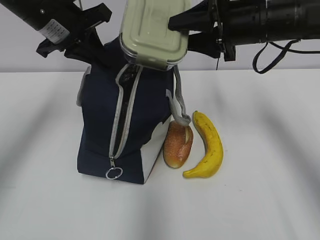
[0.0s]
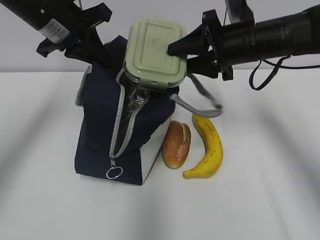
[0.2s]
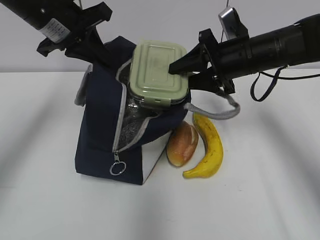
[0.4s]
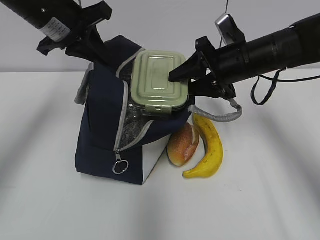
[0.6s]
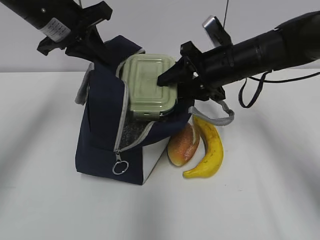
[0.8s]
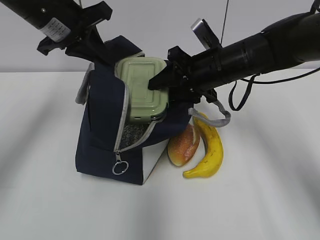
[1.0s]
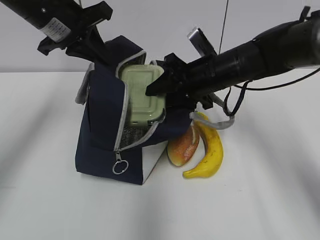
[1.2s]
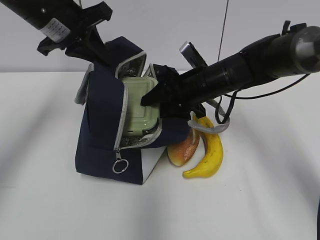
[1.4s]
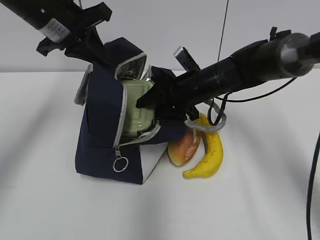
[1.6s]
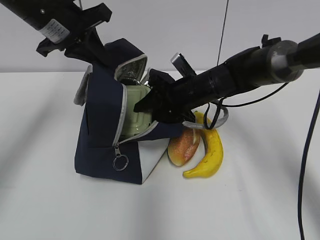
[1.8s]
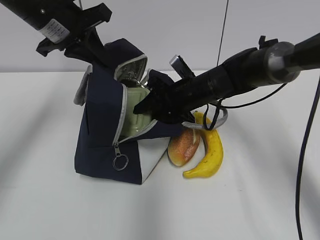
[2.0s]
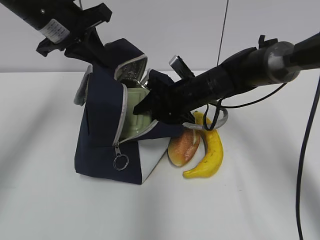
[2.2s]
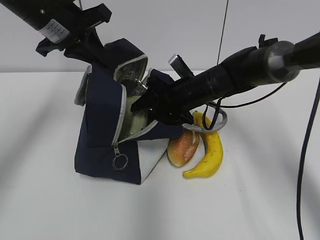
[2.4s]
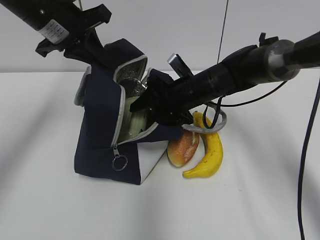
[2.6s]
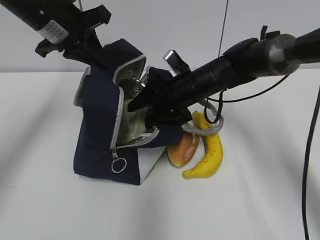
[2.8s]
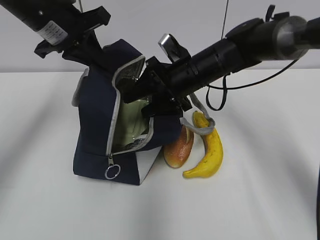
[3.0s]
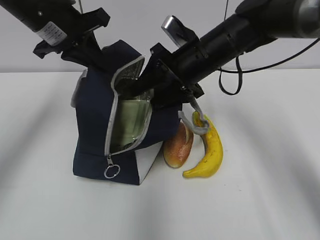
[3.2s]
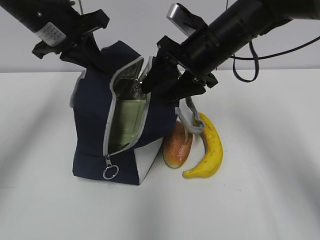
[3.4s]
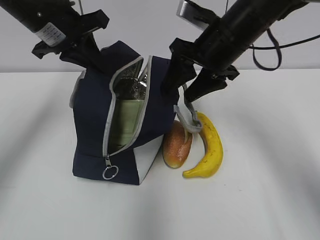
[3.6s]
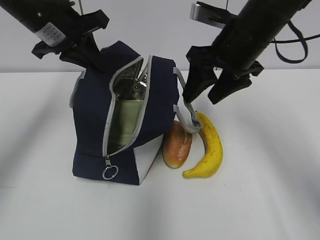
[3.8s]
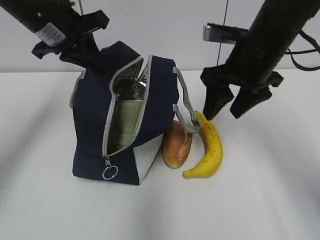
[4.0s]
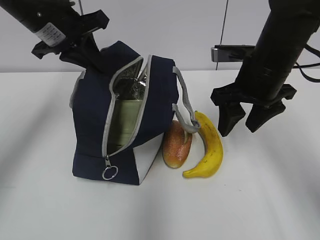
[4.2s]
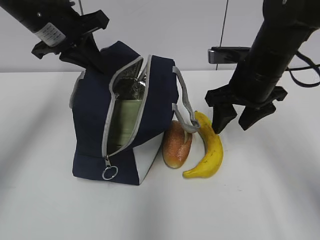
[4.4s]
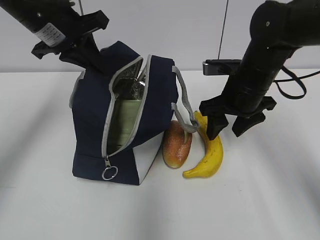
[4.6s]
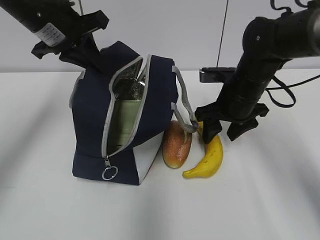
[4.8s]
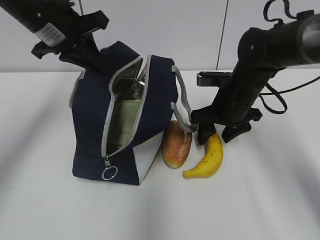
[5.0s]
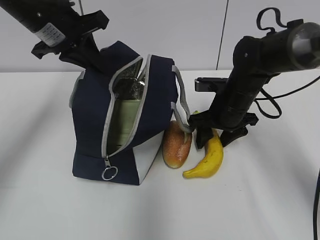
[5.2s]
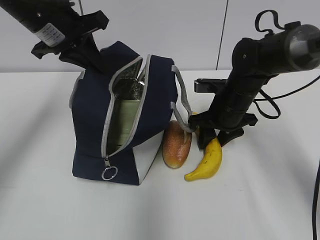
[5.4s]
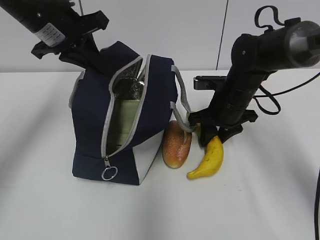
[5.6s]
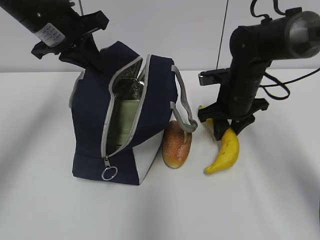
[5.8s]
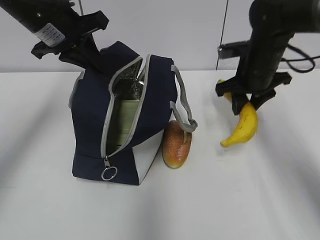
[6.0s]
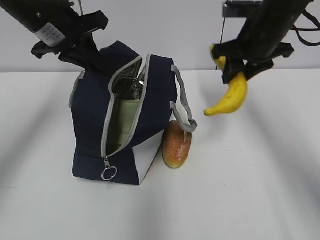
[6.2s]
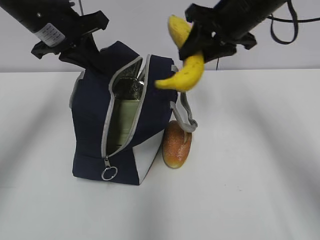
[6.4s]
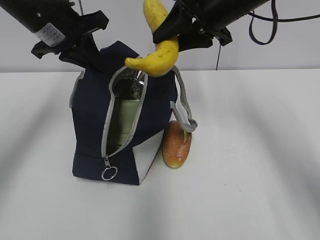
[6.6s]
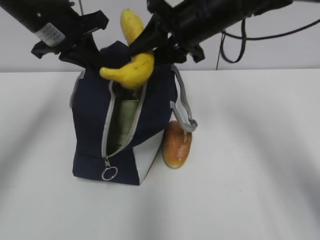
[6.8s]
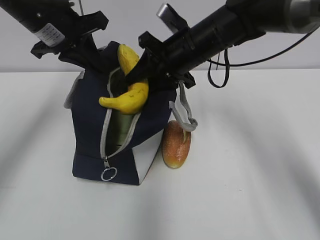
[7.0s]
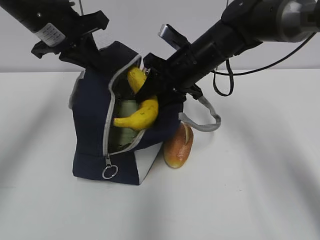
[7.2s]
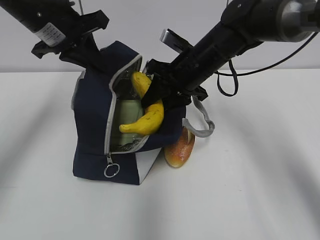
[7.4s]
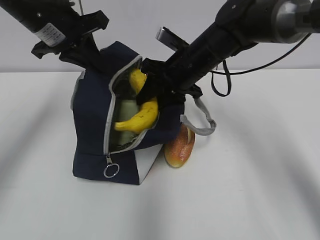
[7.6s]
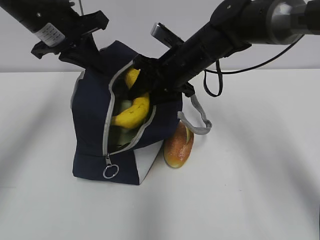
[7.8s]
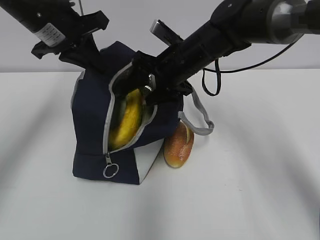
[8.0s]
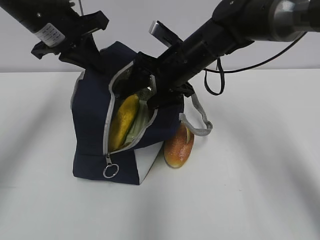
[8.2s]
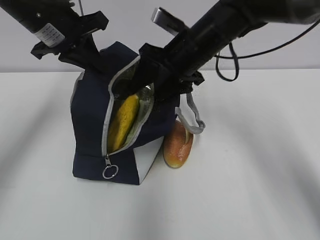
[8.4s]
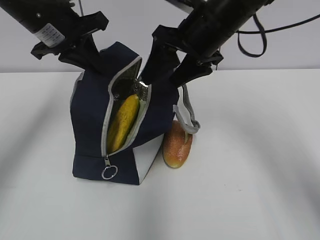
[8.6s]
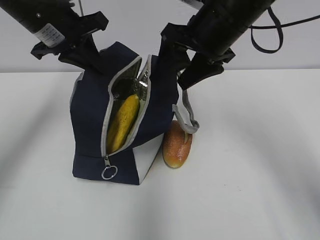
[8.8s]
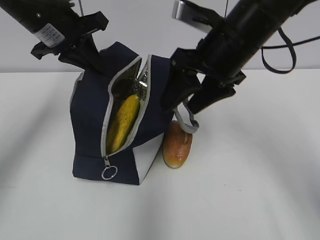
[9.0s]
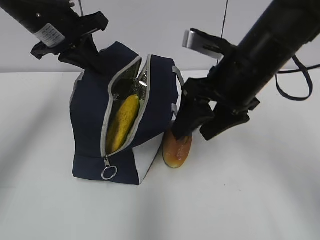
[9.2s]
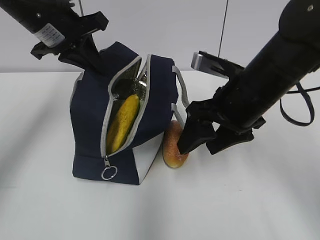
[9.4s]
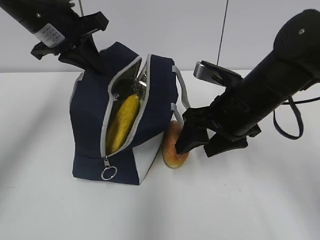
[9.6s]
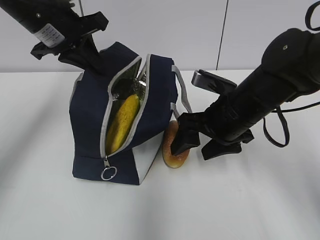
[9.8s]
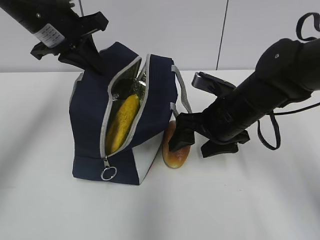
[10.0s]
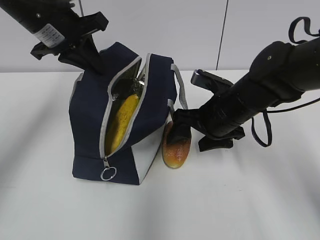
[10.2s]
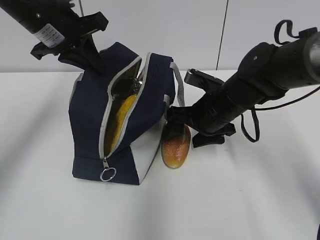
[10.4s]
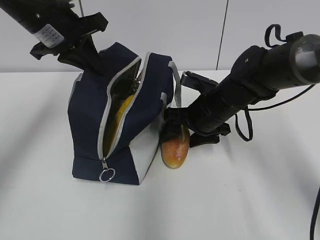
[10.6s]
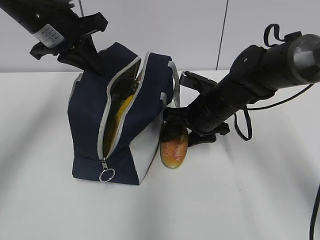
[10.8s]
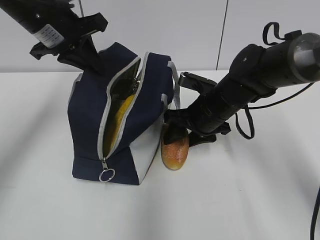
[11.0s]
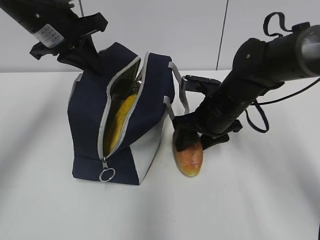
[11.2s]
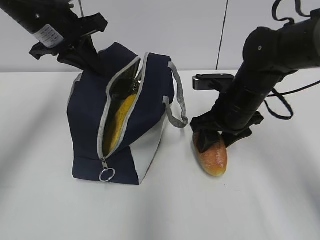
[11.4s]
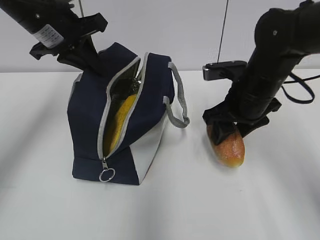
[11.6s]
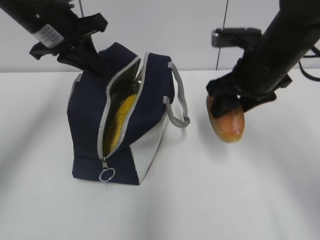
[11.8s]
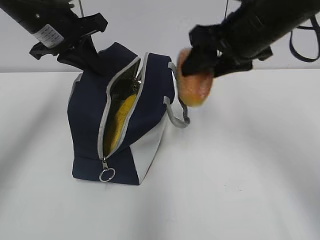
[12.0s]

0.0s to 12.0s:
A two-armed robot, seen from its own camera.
Step, 0.0s to 3.0s: Place it into the bag with your right hand.
Step, 3.2s to 5.4s: Grab the banana with your right hand.
Step, 5.8s to 8.0s: Place it into the bag with your right hand.
Step, 8.2s to 11.0s: Grab the bread with your right hand.
0.0s to 1.6s: The right gripper is displaced downward and to the left by some 15 cm.
1.6s to 3.0s: There are only small adjustments of the grippers.
3.0s to 4.4s: The right gripper travels to the right and backward by roughly 10 cm.
4.4s to 6.0s: The right gripper heads forward, covering some 5 cm, and reaches approximately 10 cm downward, then returns.
6.0s to 7.6s: The right gripper heads to the left, covering some 10 cm, and reaches approximately 10 cm upward, then returns.
7.6s to 9.0s: The right gripper is displaced upward and backward by roughly 10 cm, and opens its fingers.
9.0s to 10.4s: The right gripper is displaced downward by roughly 15 cm.
10.4s to 12.0s: The right gripper heads upward, covering approximately 15 cm.

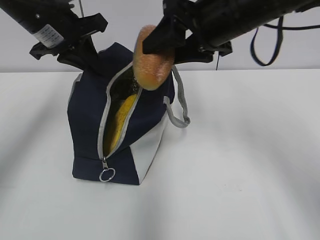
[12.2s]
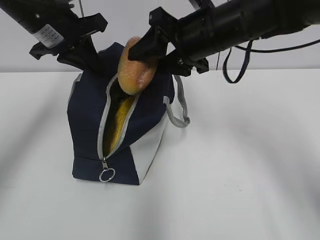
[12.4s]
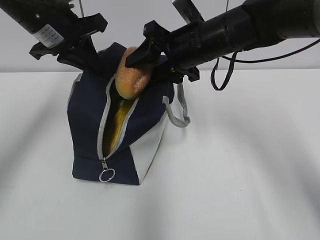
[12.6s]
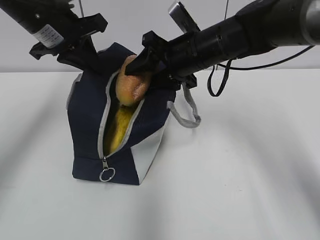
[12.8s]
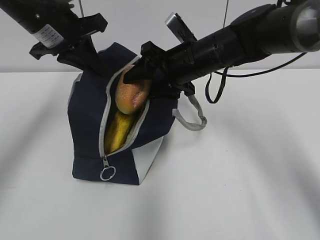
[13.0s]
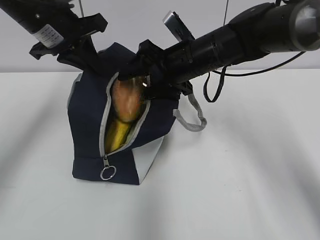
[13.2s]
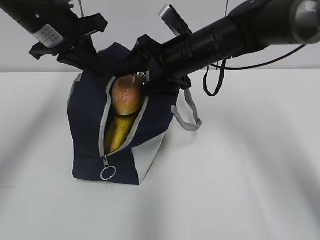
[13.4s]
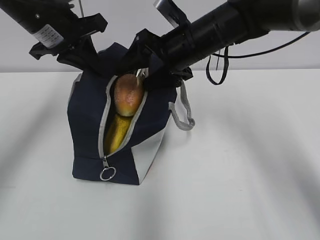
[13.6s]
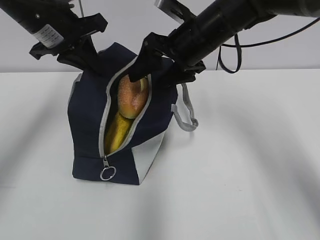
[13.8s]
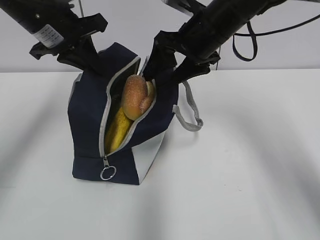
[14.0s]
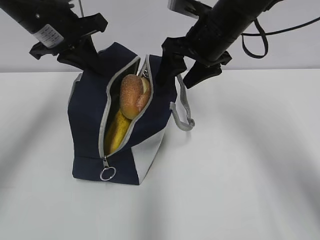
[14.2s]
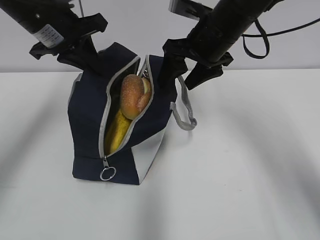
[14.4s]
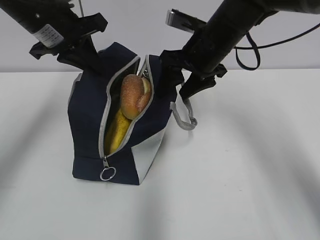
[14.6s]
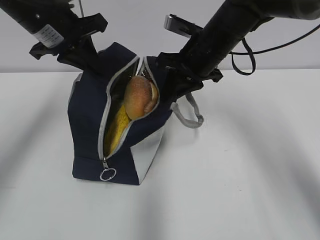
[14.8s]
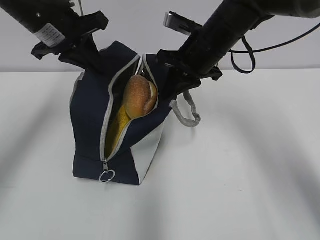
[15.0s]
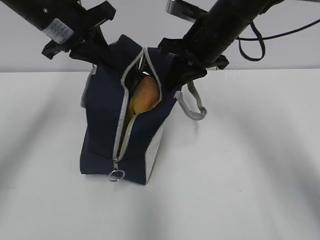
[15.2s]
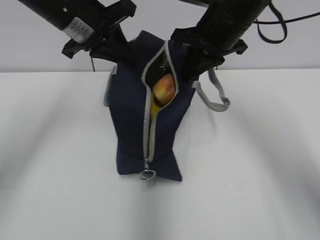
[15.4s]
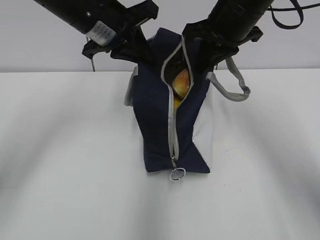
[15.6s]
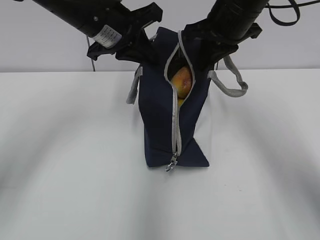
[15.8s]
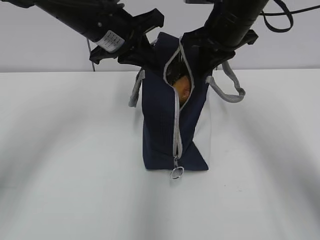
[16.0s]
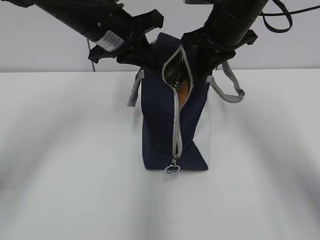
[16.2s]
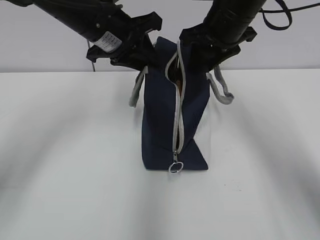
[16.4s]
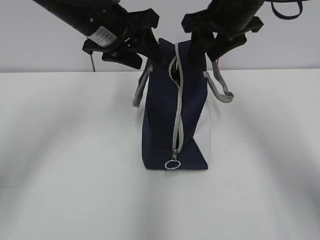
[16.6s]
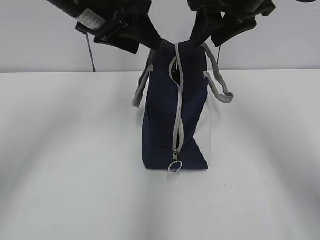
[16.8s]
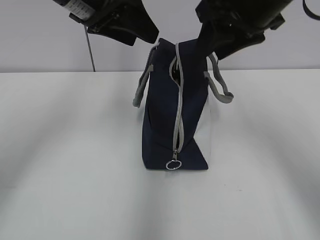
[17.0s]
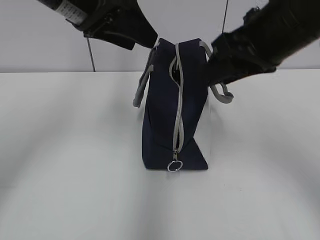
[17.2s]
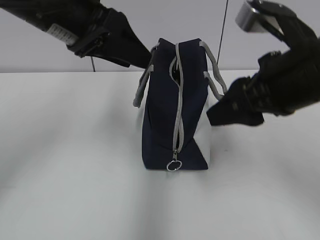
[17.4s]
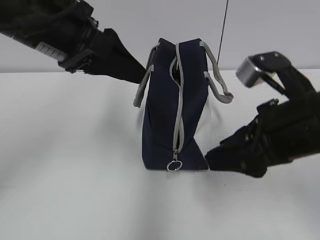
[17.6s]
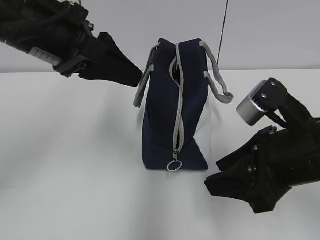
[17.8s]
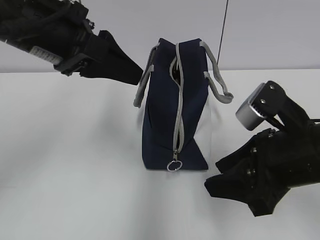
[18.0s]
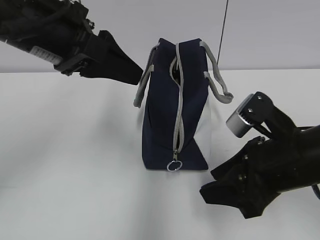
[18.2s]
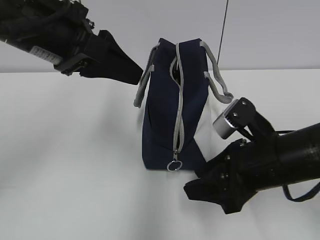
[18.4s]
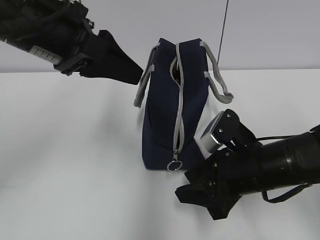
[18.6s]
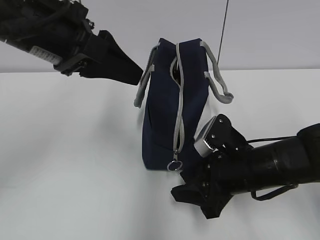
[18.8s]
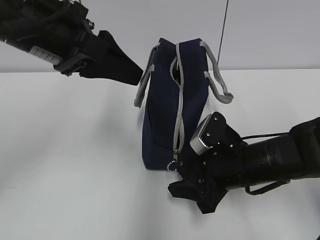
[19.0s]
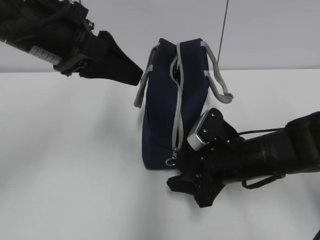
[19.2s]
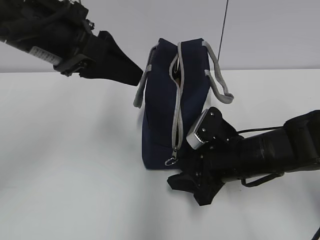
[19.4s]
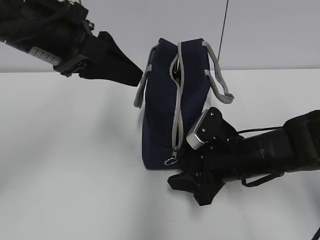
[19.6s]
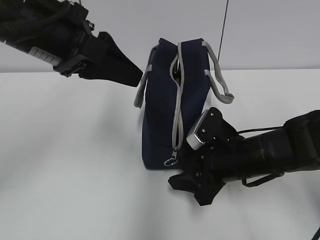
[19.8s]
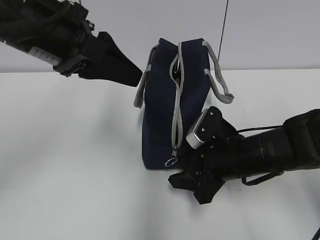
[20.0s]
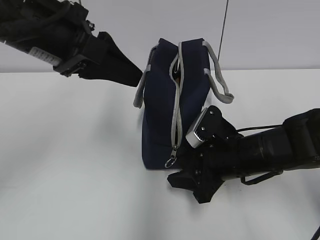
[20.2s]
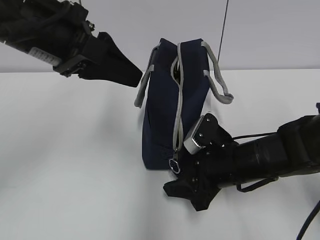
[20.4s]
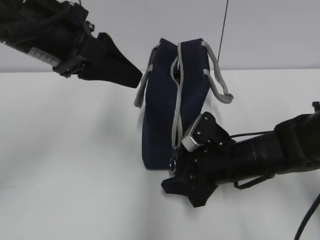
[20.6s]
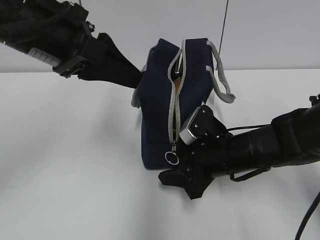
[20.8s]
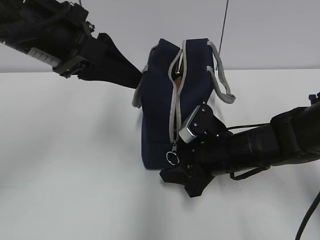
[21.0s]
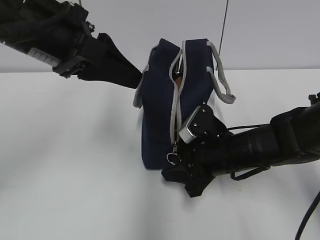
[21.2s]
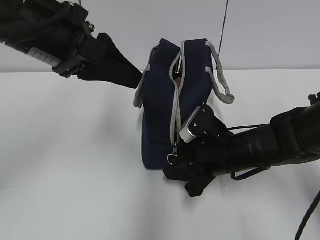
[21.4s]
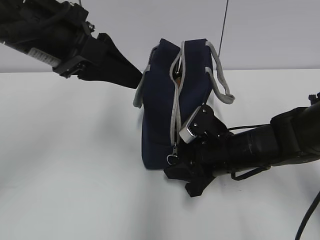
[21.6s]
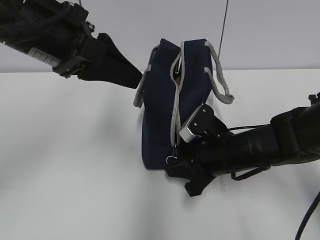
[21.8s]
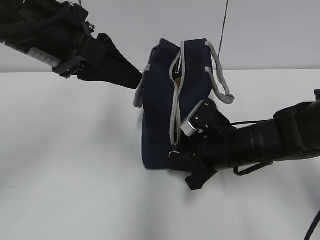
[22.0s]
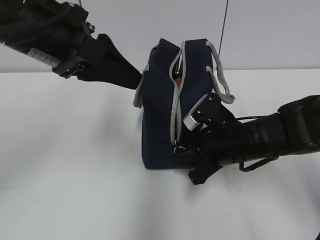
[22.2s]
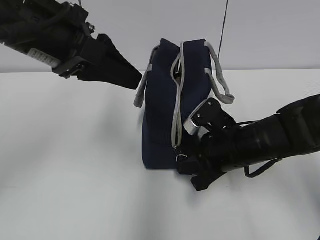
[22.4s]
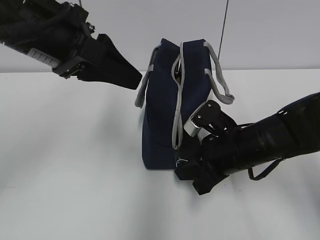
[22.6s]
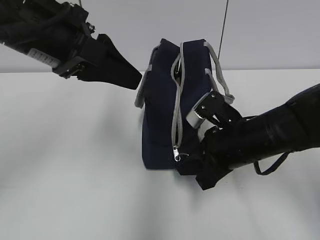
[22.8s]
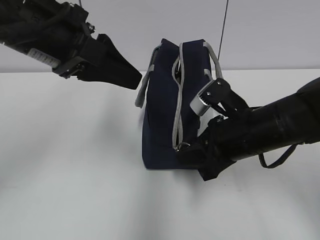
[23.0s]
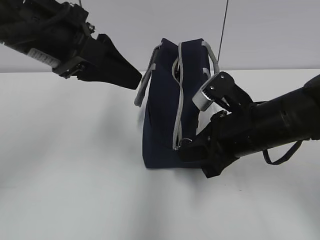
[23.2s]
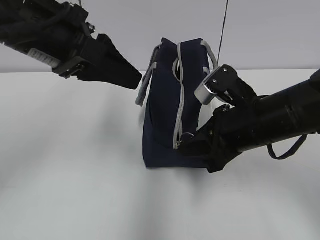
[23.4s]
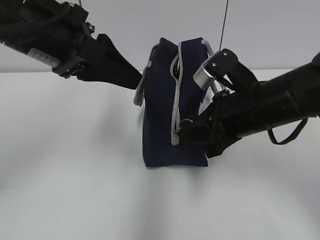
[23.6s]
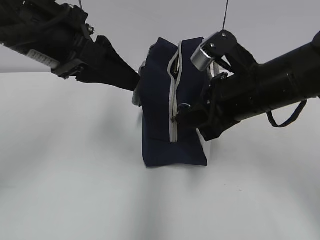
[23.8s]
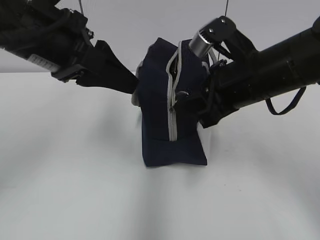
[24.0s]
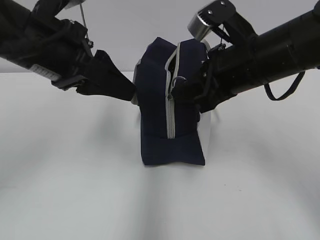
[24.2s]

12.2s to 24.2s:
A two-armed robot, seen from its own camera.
Step, 13.6s to 14.6s: Grab the lunch bag with your right hand.
Step, 14.8s to 16.2s: Move the lunch bag to the right.
12.2s to 13.8s: The right gripper goes some 10 cm forward and downward.
13.8s to 15.2s: The right gripper closes up.
15.2s to 16.6s: The left gripper moves to the right, roughly 5 cm, and opens. The right gripper heads upward, covering some 5 cm, and opens.
16.6s to 18.2s: The right gripper travels backward and downward by roughly 25 cm; the left gripper travels backward by approximately 10 cm.
18.2s to 19.8s: The right gripper goes roughly 10 cm downward and forward.
19.8s to 21.2s: The grippers make only small movements.
21.2s to 22.6s: The right gripper closes its fingers.
22.6s to 24.2s: The right gripper is displaced upward by some 15 cm.
